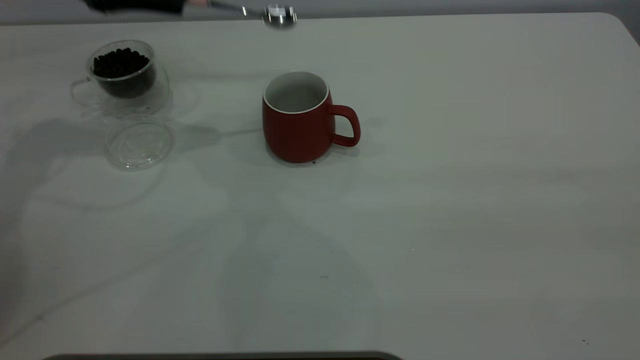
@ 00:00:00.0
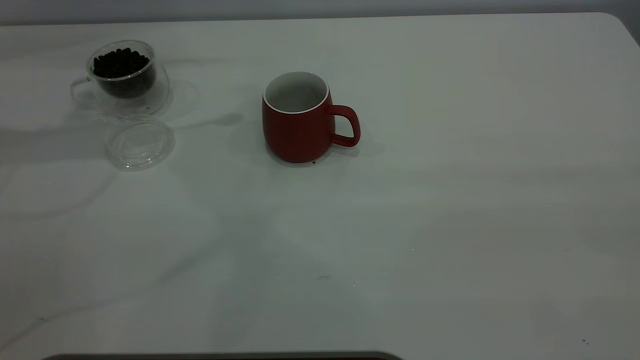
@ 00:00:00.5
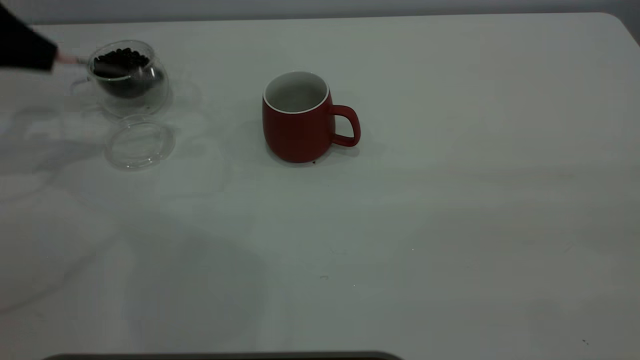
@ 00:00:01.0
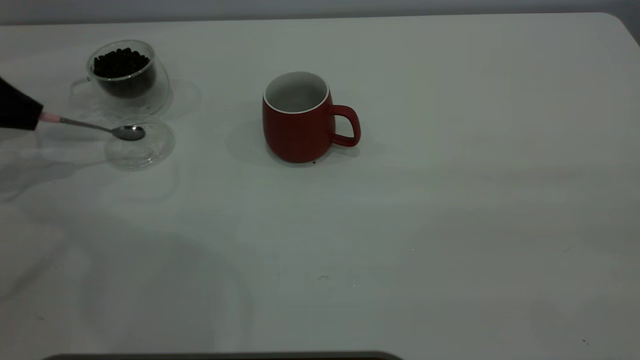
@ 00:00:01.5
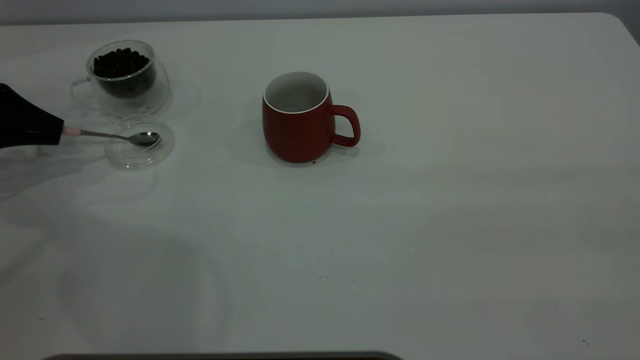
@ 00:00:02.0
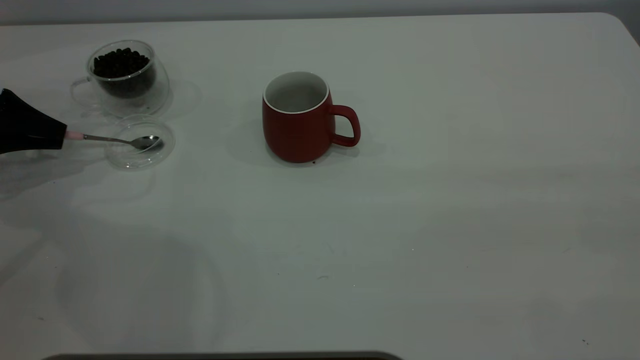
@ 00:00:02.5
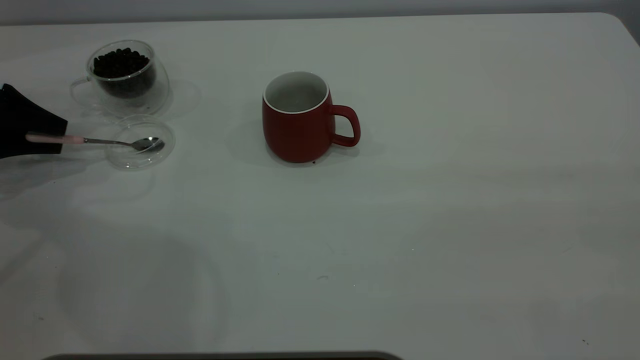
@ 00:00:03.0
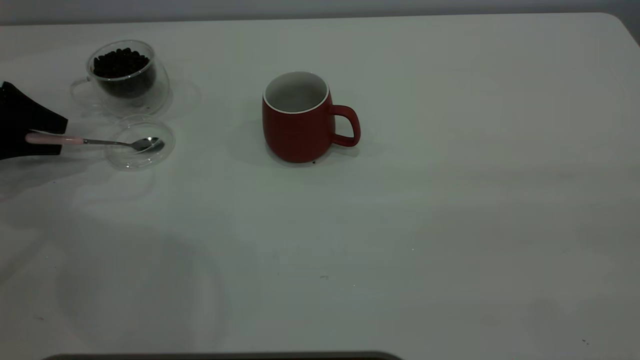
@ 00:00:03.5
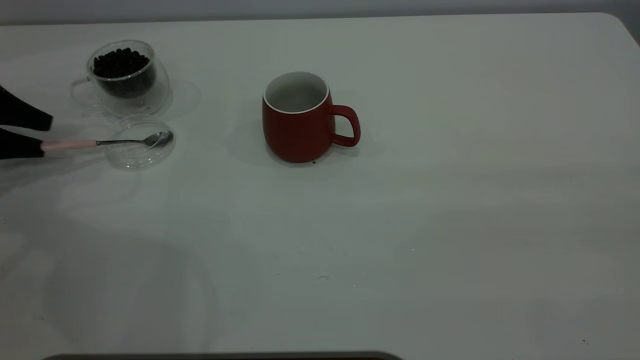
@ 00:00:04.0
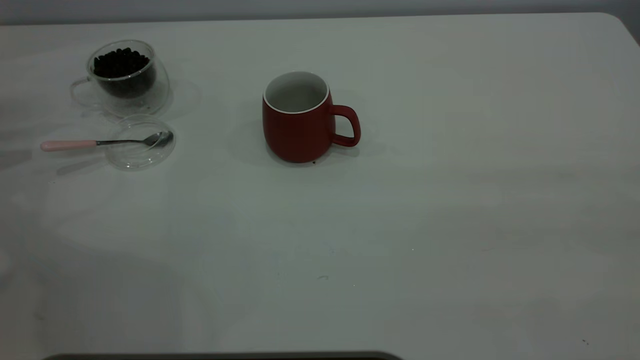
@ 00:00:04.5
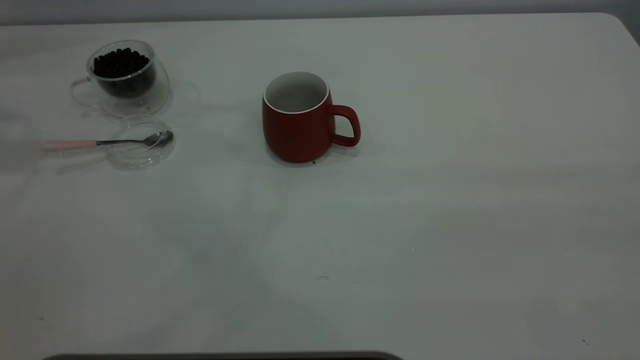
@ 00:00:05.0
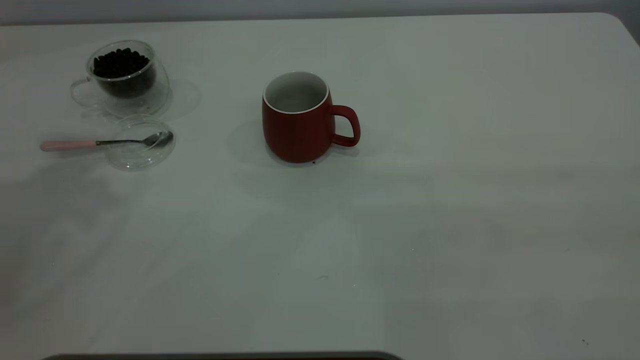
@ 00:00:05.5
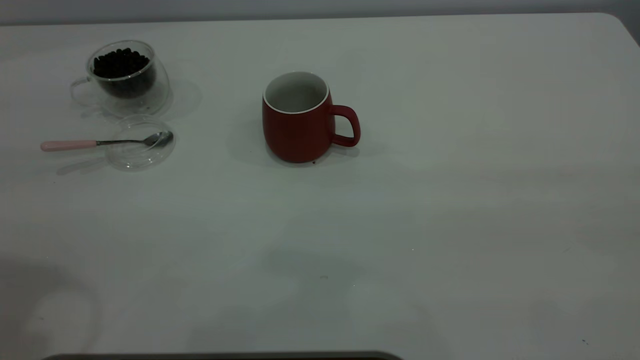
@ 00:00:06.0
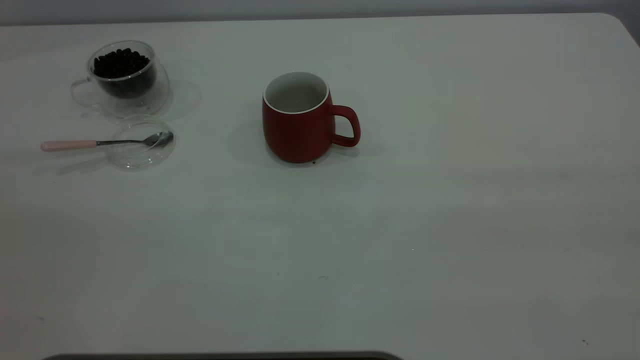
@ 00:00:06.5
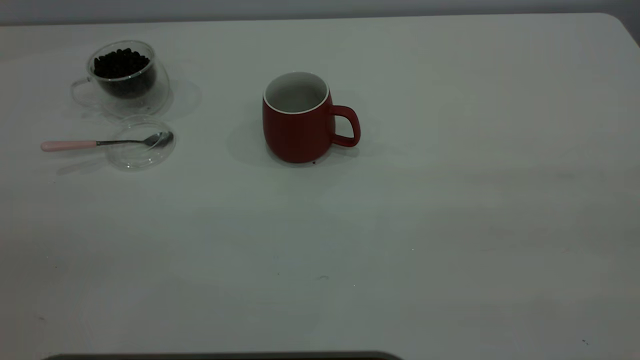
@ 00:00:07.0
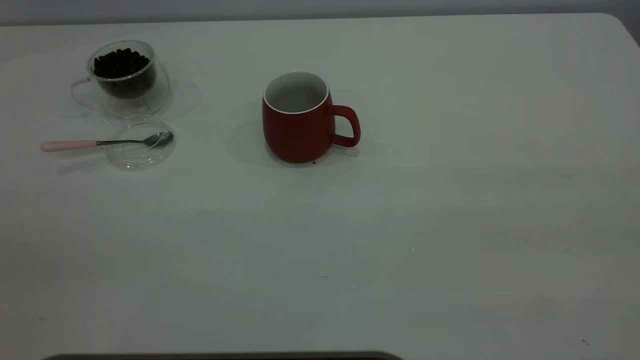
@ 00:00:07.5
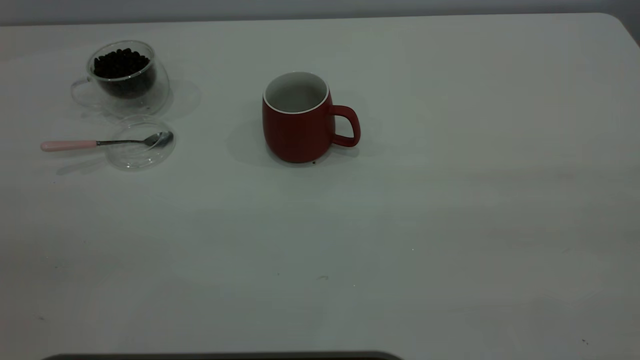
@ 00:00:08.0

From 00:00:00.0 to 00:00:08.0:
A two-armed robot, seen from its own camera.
Task of the whole recording: the right gripper place the red cup in the center of the table, the left gripper take the pink spoon from the cup lid and scoop out the coffee beans from the coffee cup and put them into the red cup, the left gripper put the spoon back into the cup lid.
Step, from 00:00:00.0 to 00:00:04.0: Place the spoon back in its original place.
From 00:00:00.0 to 00:00:02.0: The left gripper goes approximately 20 cm to the left and downward.
From 00:00:02.0 to 00:00:04.0: The left gripper opens.
From 00:00:04.0 to 00:00:06.0: The left gripper shifts some 40 cm upward, backward and to the right.
